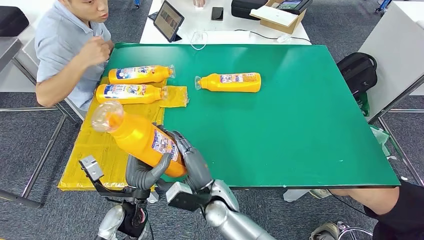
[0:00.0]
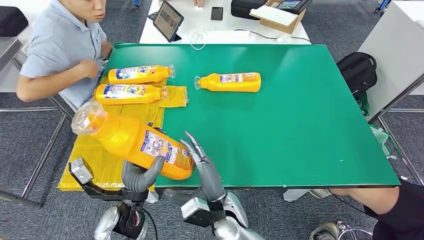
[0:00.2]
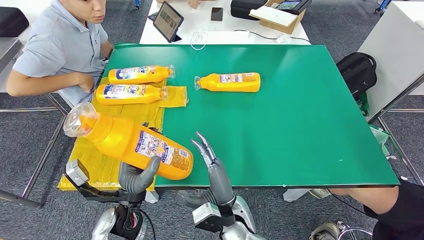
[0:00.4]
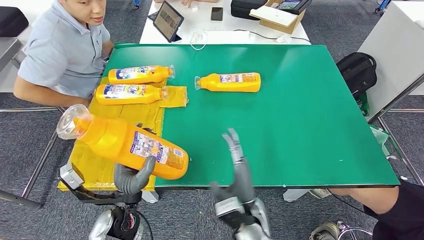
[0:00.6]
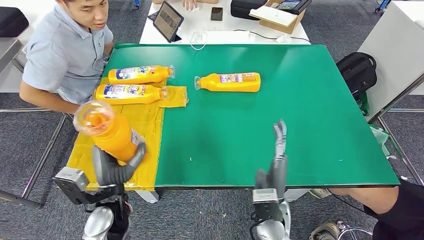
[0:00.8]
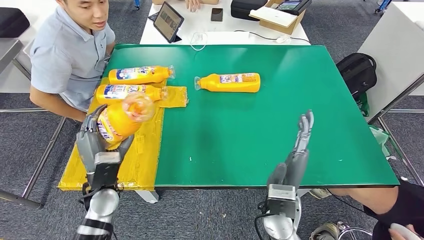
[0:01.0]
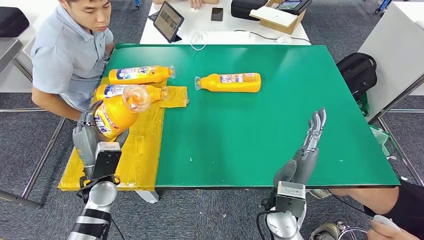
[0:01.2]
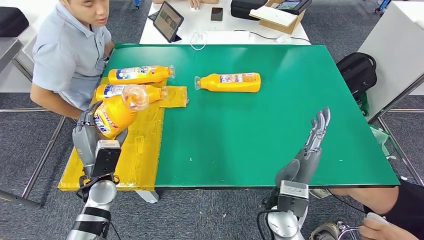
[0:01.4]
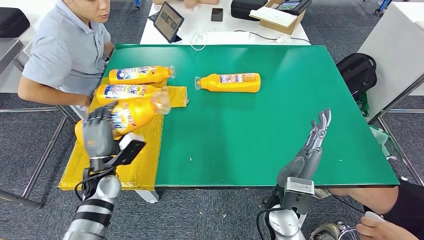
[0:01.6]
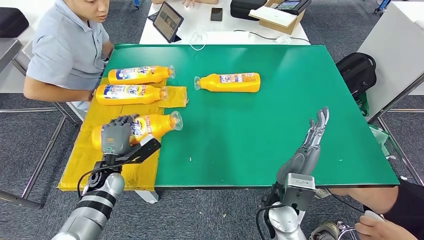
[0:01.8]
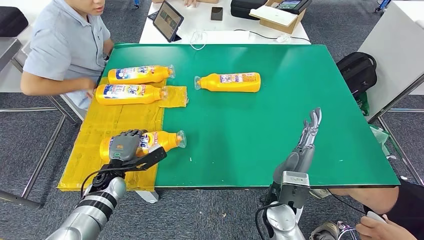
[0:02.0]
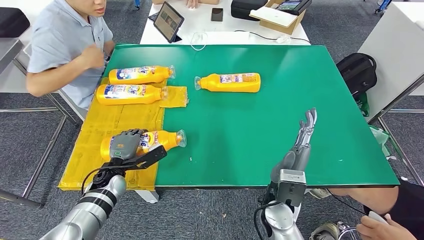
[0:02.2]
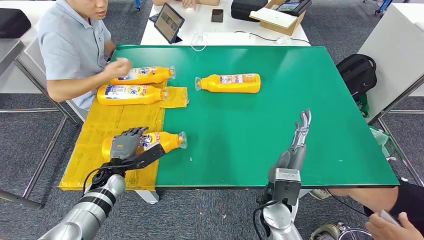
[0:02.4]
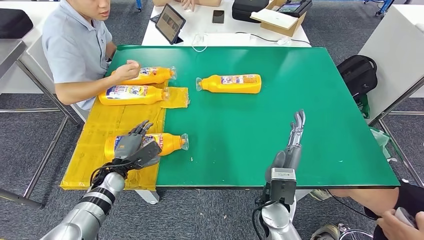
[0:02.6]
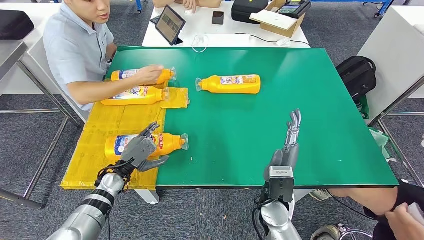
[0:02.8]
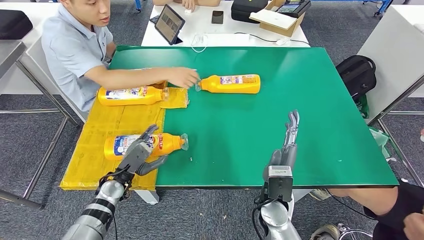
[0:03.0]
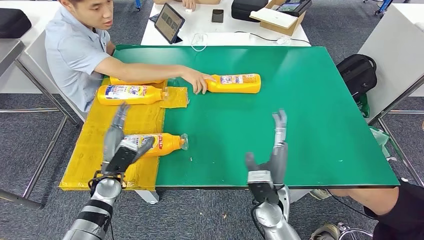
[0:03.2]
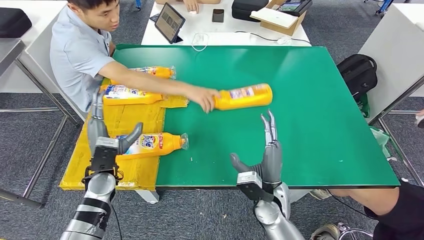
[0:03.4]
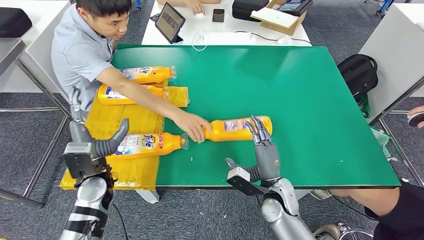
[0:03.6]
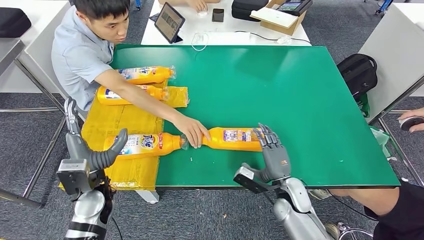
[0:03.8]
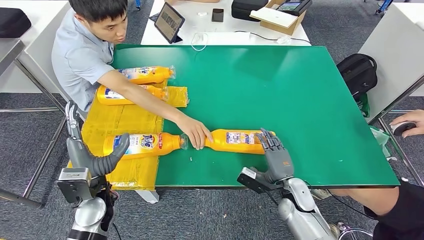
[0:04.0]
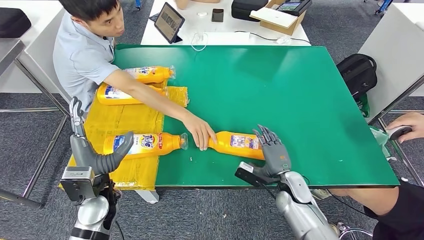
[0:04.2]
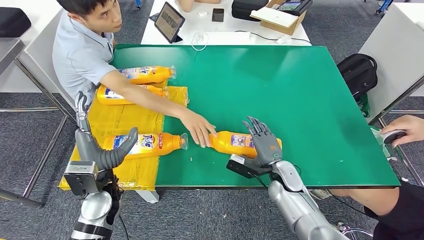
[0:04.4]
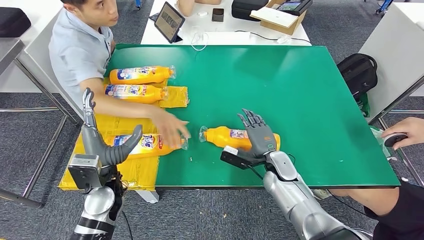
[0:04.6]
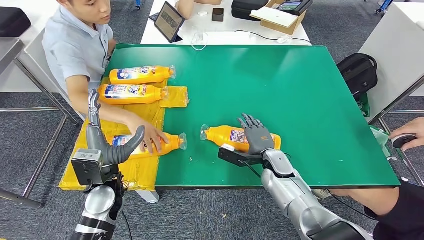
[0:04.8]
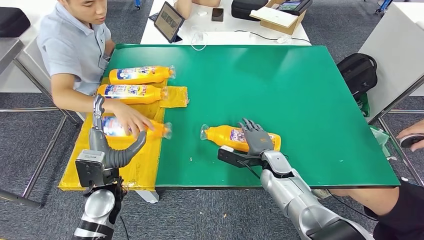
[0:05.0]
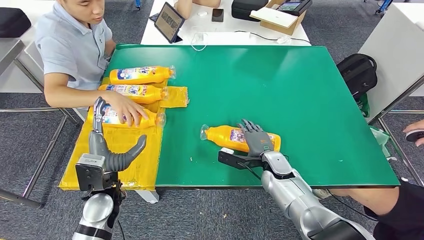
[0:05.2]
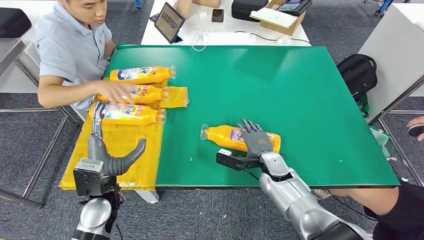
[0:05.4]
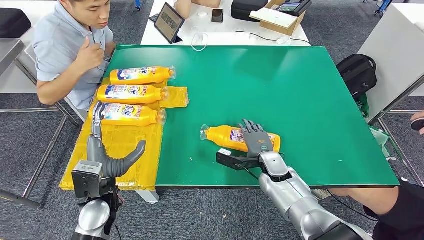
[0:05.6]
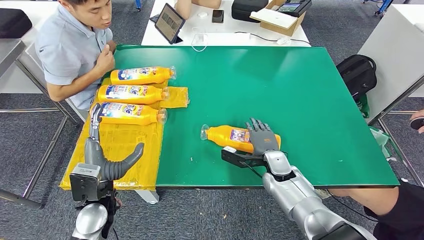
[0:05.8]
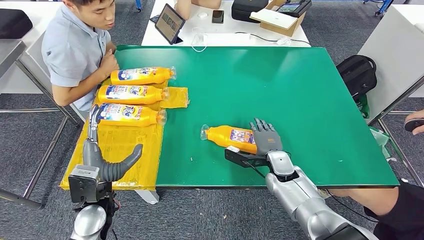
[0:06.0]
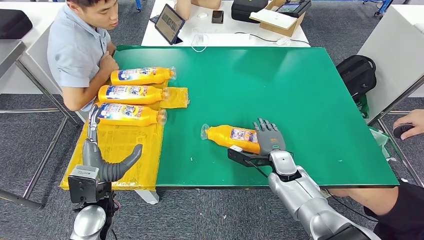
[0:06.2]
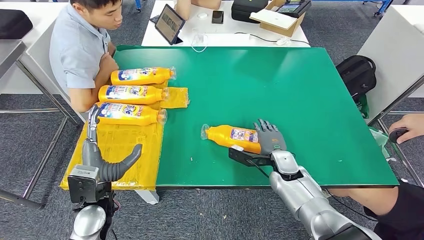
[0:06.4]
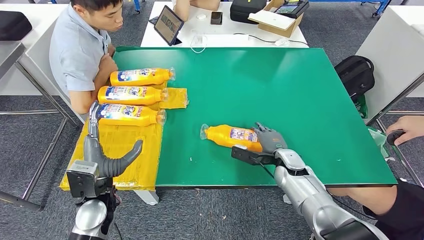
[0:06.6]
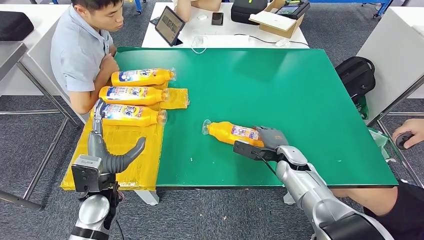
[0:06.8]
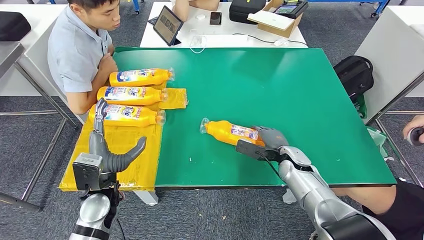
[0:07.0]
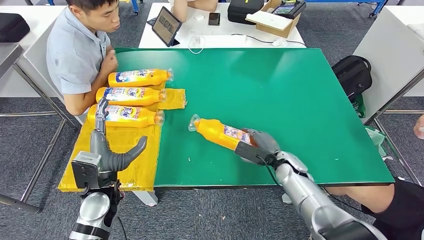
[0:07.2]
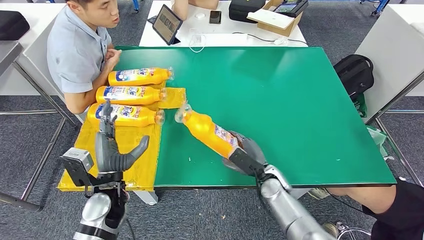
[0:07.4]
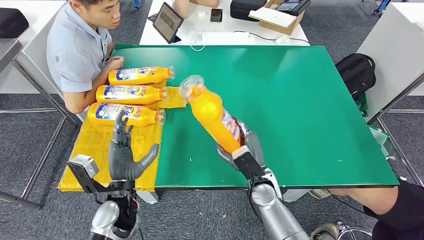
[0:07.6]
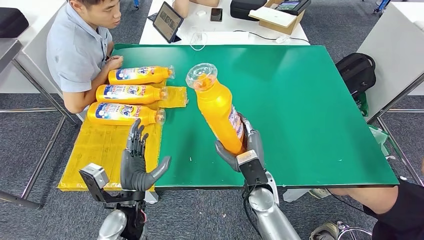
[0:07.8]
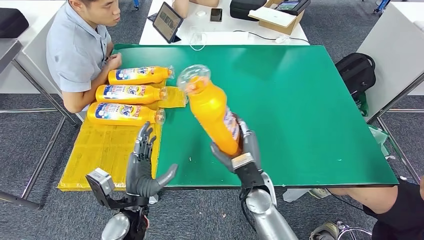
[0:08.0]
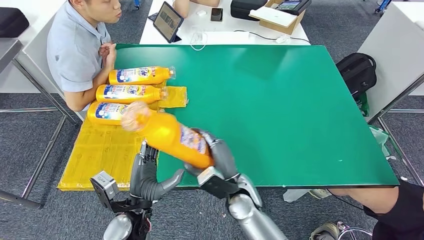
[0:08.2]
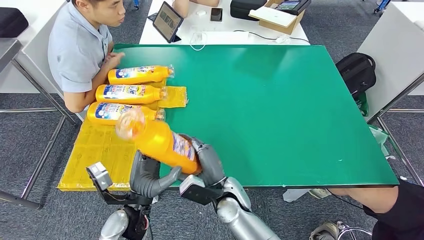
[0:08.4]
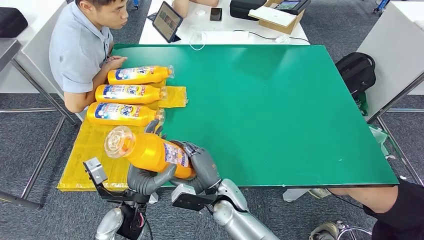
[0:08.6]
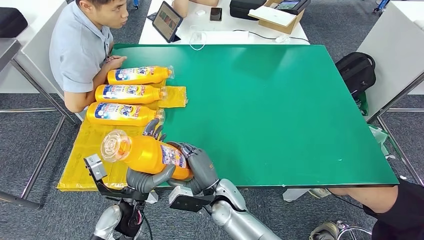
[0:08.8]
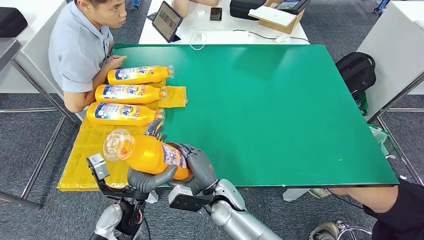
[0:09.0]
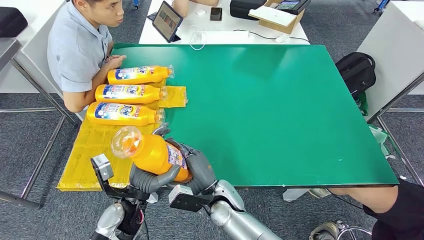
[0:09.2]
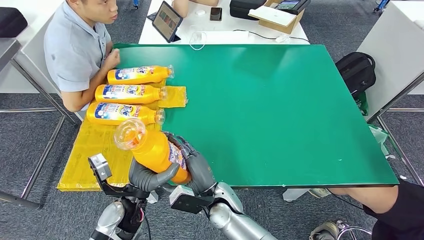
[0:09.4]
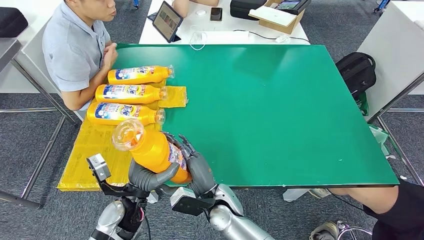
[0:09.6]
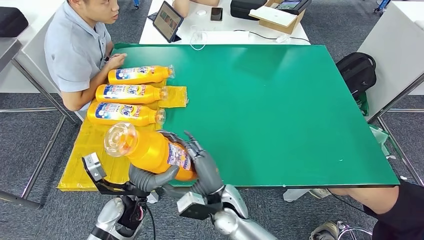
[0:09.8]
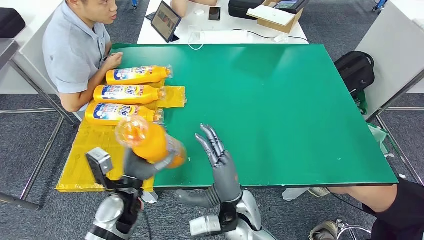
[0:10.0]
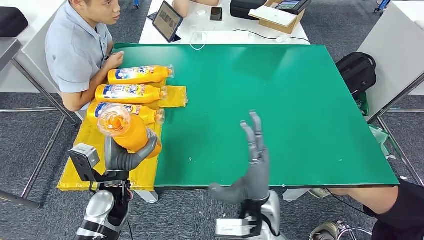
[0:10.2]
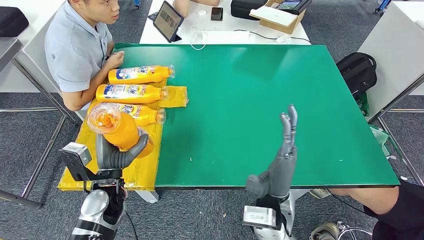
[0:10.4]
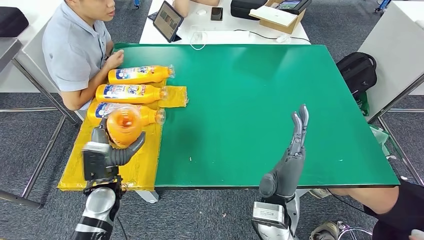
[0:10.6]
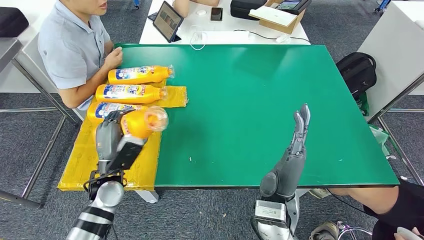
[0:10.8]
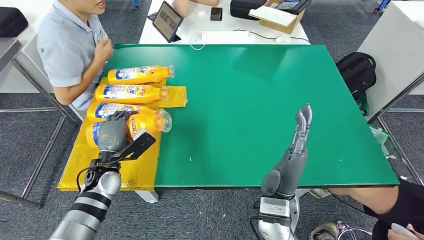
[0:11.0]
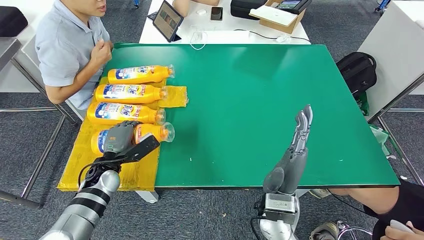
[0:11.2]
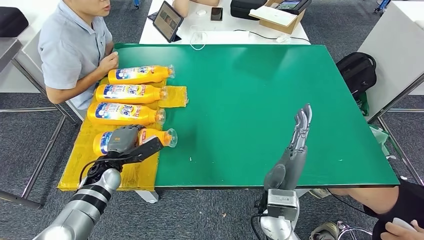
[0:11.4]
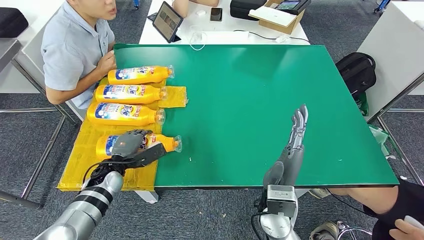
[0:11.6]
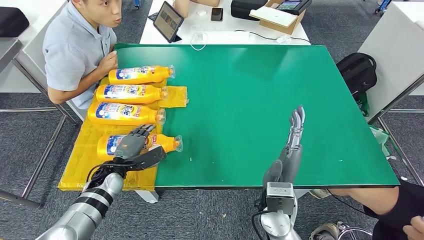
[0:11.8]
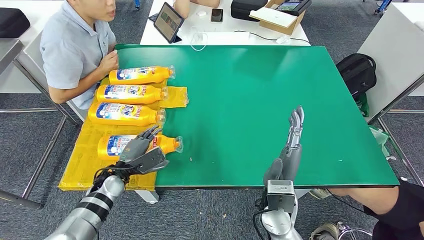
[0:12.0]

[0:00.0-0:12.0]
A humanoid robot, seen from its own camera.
Step, 0:00.0 to 0:04.2: Flip the fast-moving consumer goods bottle to the front side.
Step, 0:04.8 to 0:08.2: Pick up the fast-moving consumer goods bottle from the table.
0:09.0 to 0:10.4: The left hand heads to the left, covering some 5 cm. The right hand heads to the right and upward, covering some 15 cm.
0:10.4 to 0:12.0: The left hand heads downward and forward, covering about 10 cm.

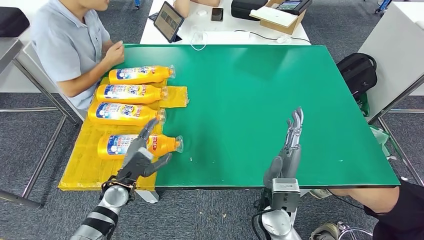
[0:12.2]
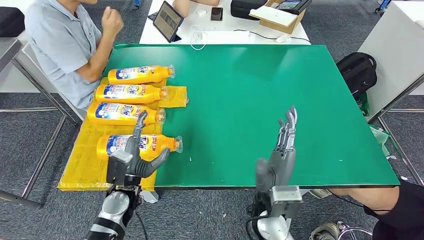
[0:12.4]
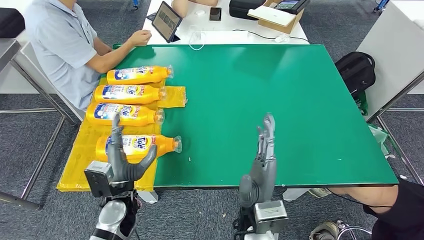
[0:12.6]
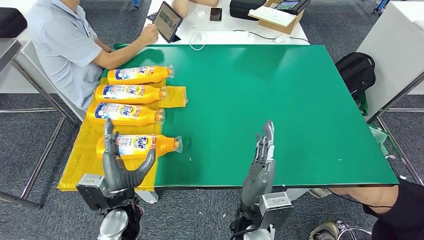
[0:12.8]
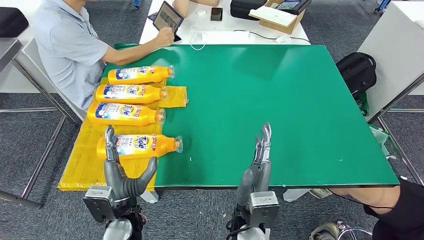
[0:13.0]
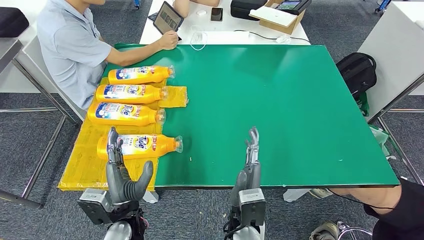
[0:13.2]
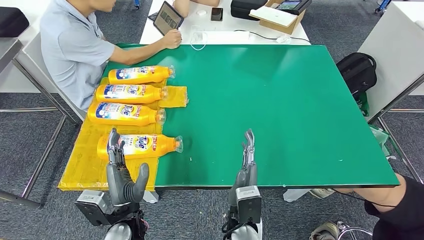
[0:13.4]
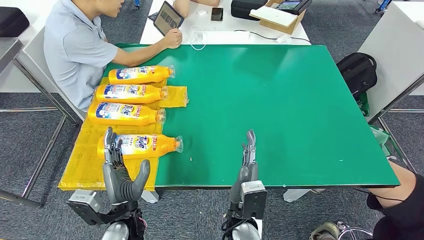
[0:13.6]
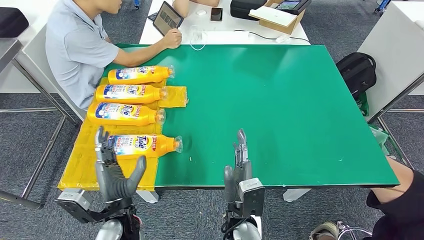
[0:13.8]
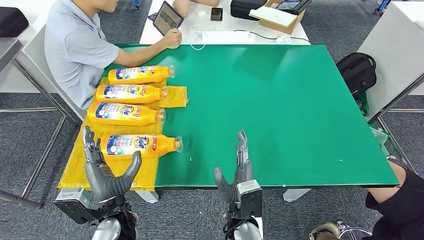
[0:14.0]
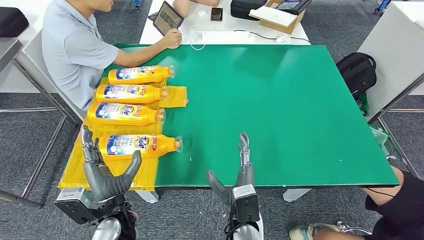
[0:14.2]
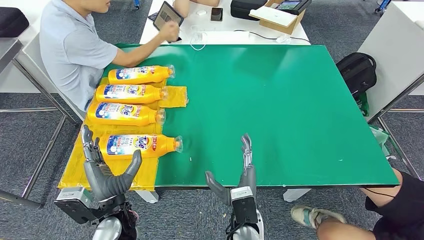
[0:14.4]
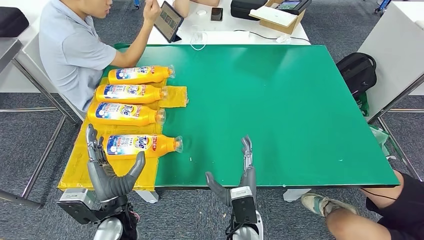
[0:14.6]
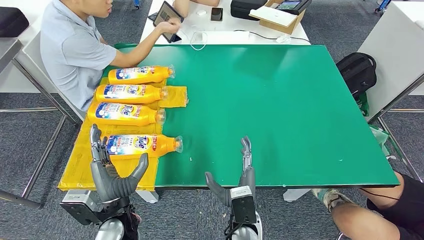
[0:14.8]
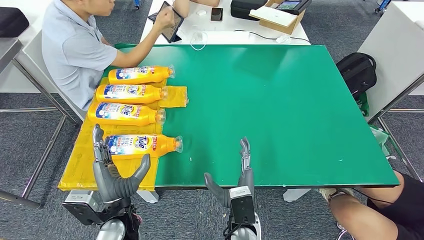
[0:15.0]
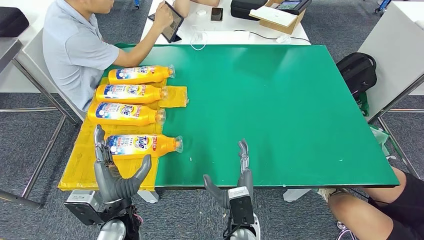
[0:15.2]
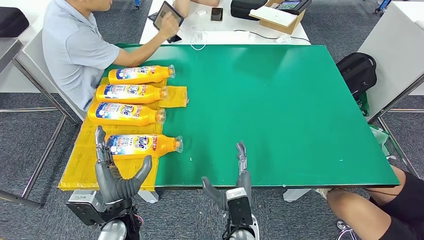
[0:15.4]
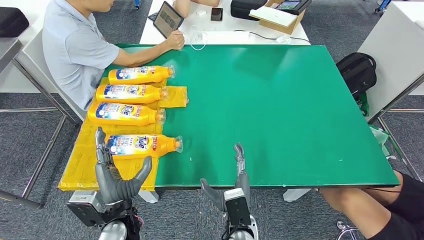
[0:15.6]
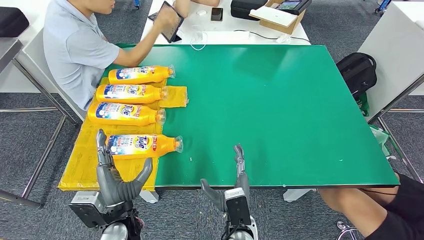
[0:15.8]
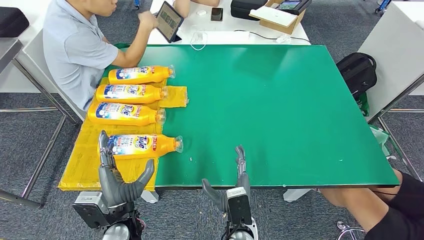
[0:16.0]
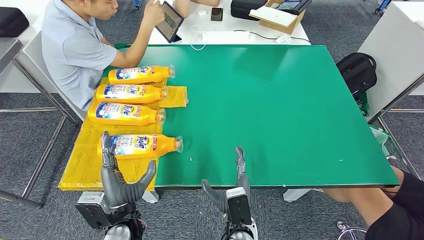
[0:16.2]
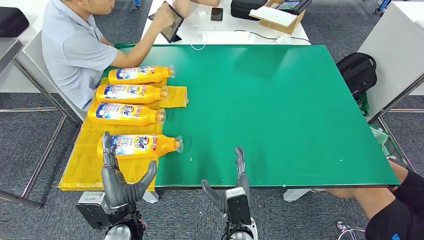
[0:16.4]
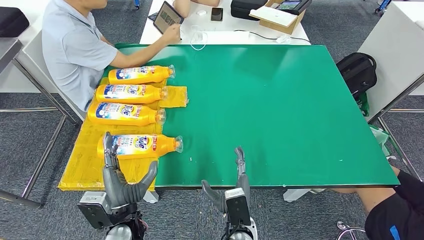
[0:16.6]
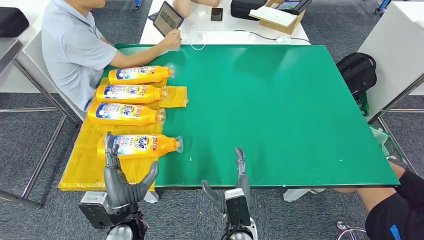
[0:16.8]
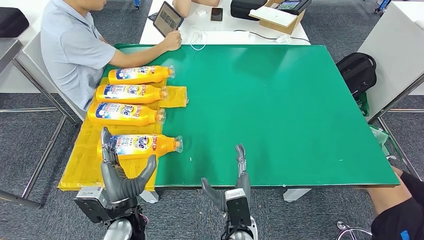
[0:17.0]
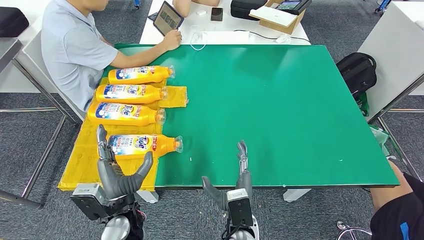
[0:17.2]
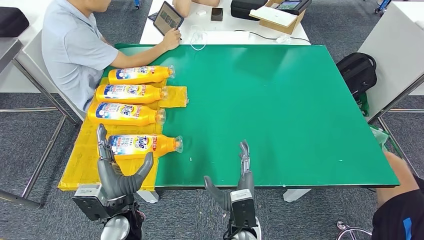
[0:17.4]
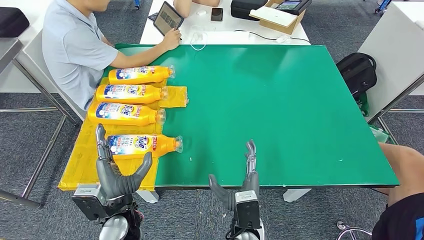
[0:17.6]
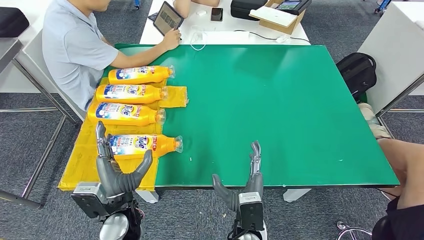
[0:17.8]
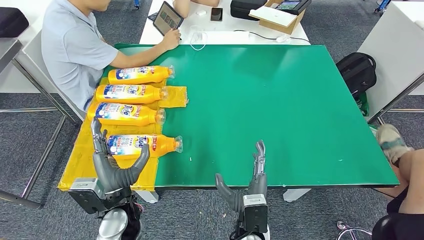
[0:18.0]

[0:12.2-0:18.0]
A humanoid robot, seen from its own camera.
Step, 0:12.2 to 0:18.0: Flip the fast-moving consumer goods bottle to the front side.
0:12.2 to 0:13.6: The right hand goes some 10 cm to the left. The left hand heads backward and to the right, covering roughly 10 cm.
0:13.6 to 0:18.0: There are only small adjustments of the hands.
